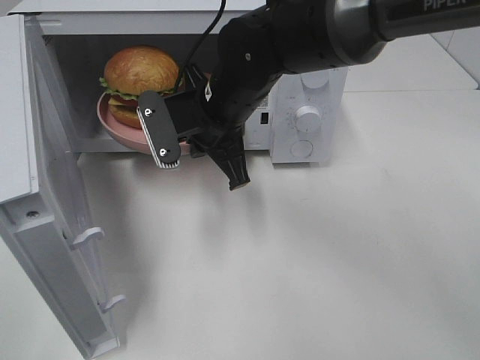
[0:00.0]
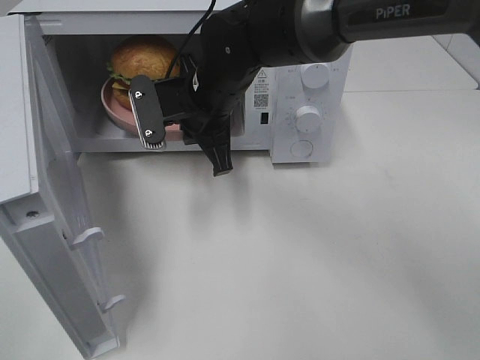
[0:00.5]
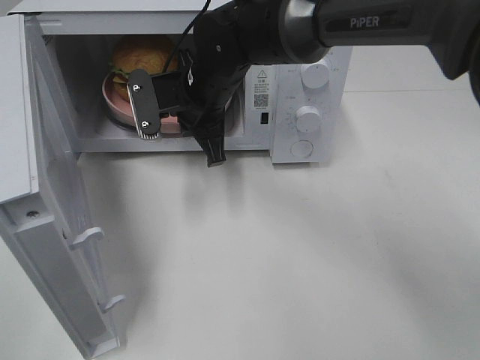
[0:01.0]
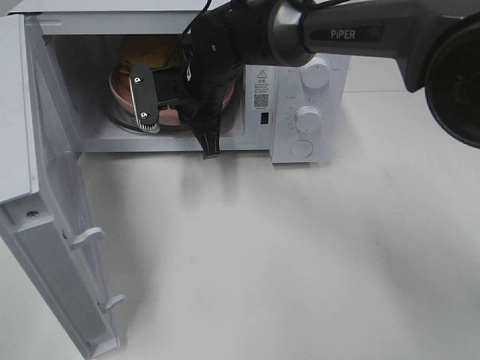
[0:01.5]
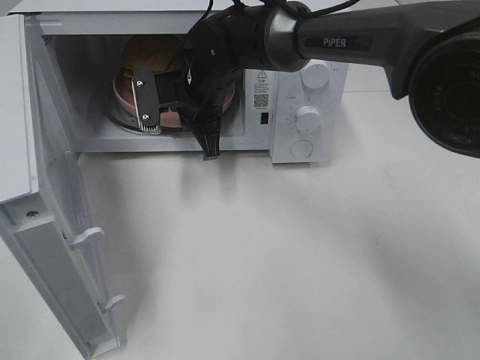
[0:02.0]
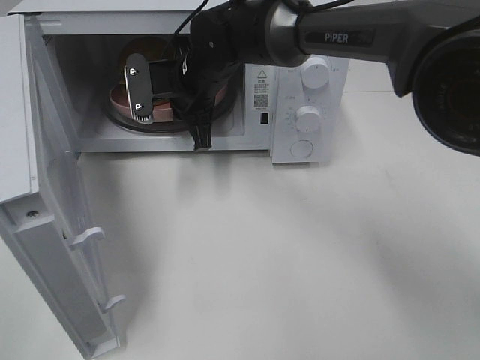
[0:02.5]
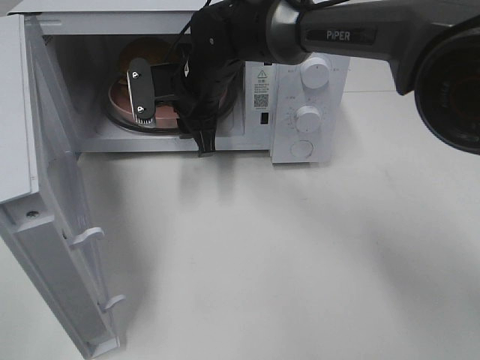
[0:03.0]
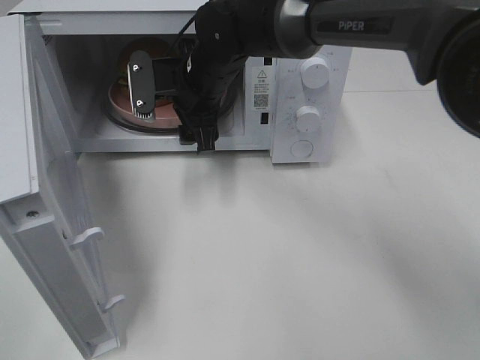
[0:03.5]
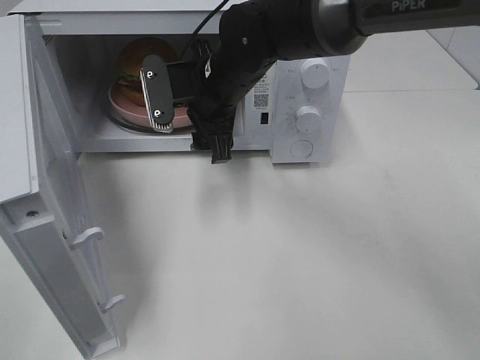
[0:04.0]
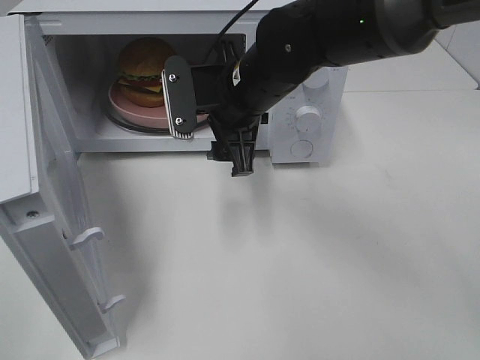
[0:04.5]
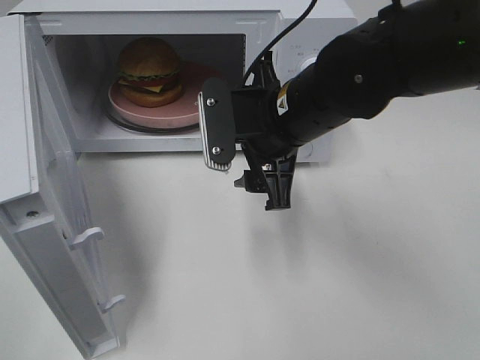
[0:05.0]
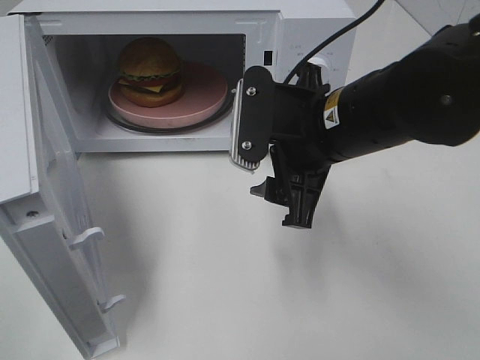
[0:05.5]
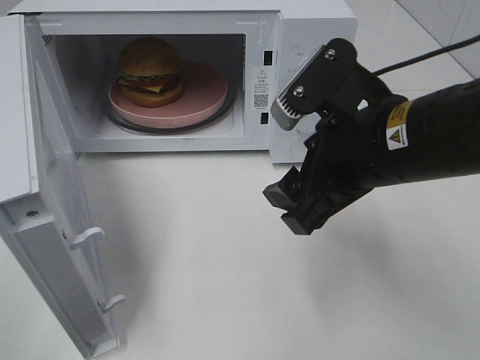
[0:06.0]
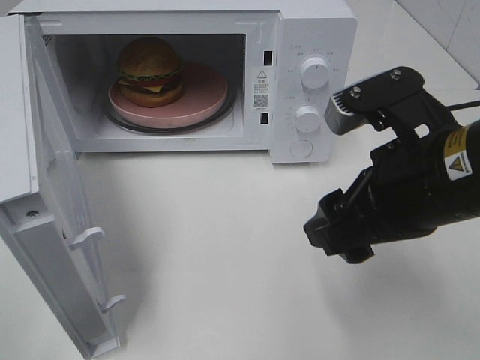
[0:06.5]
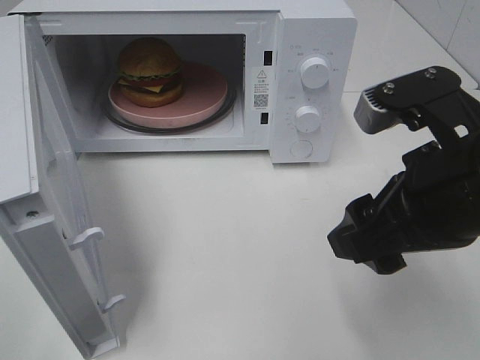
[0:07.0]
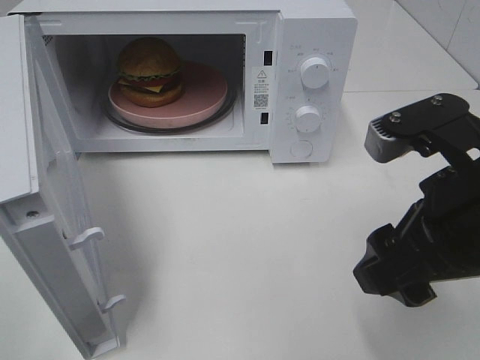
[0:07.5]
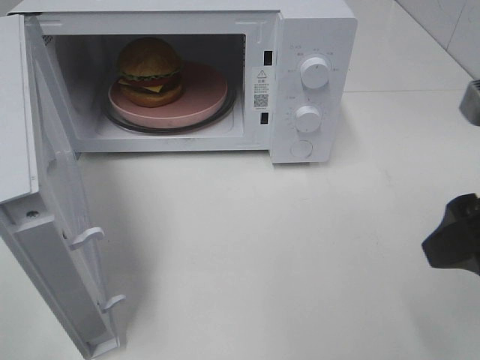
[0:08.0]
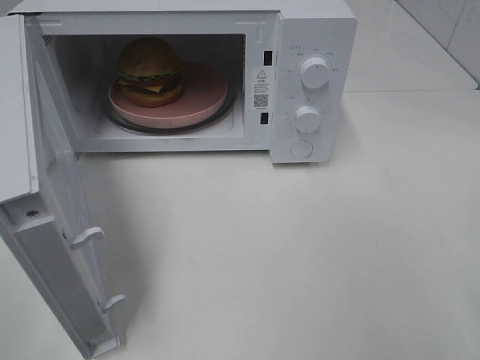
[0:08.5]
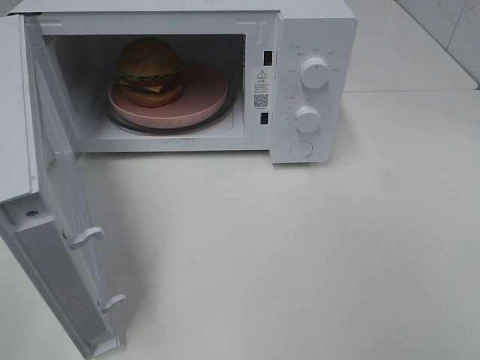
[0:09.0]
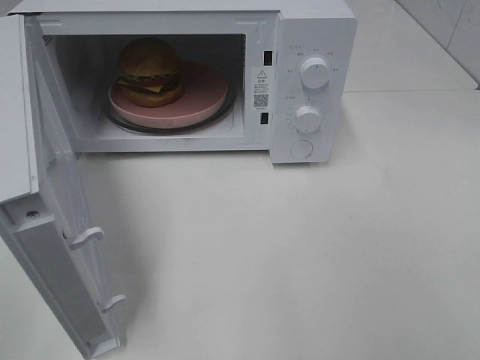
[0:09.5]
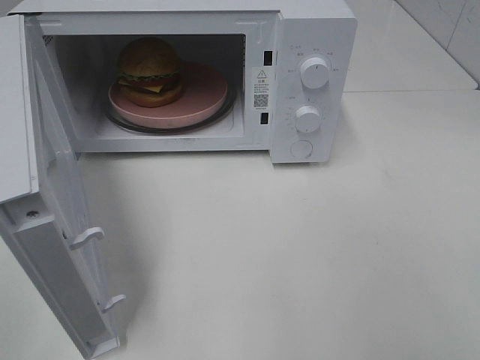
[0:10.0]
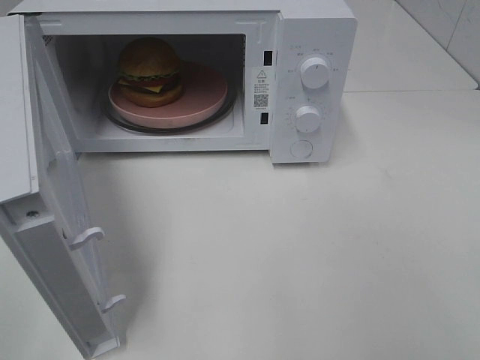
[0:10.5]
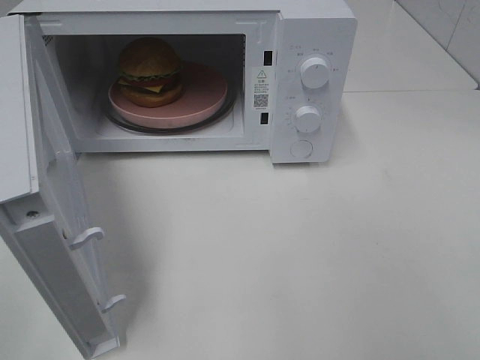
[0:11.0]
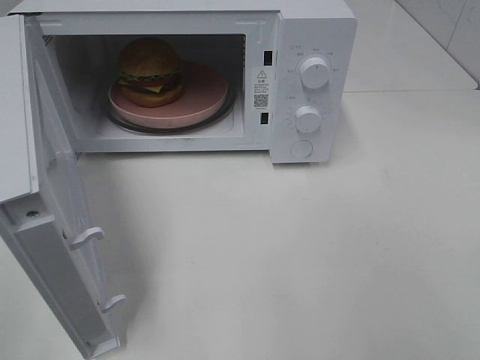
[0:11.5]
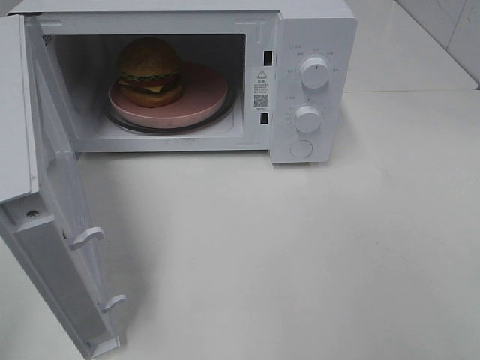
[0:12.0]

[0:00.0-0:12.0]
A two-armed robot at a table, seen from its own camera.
Task of the whole recording: Heat the burger.
Step, 0:00.0 to 0:03.0: Right hand: place the plate in the microwave.
0:00.0 to 0:02.0: The right gripper is displaced forward by about 10 cm.
0:02.0 to 0:04.0: The right gripper moves roughly 5 cm, and opens up.
0:04.0 to 0:06.0: The right gripper moves backward and to the right, some 20 cm.
0:06.0 to 0:08.0: The right gripper goes roughly 10 cm to the right and backward.
0:08.0 to 0:10.0: The right gripper heads backward and to the right, covering roughly 15 cm.

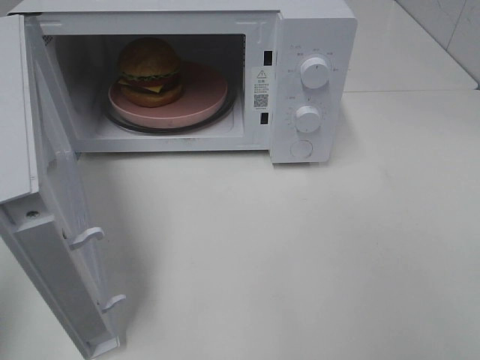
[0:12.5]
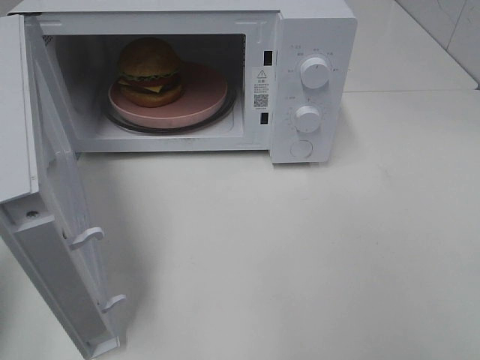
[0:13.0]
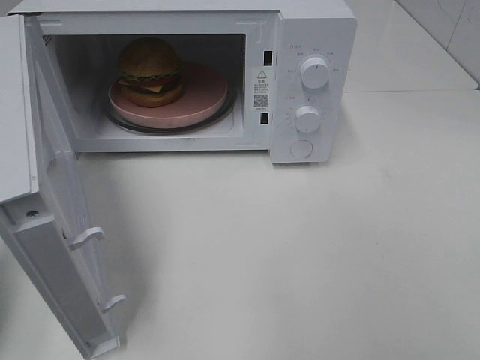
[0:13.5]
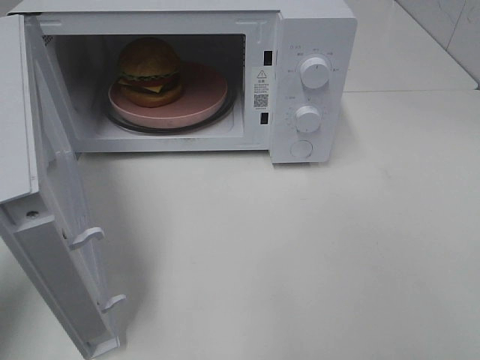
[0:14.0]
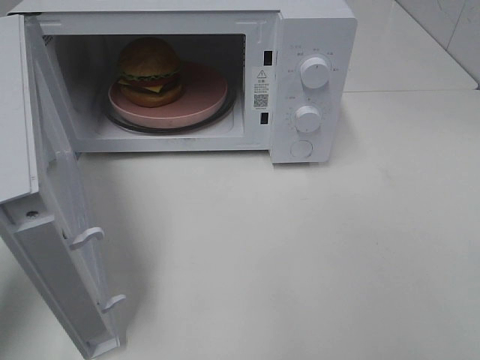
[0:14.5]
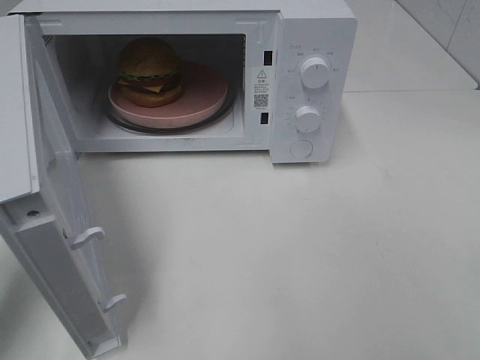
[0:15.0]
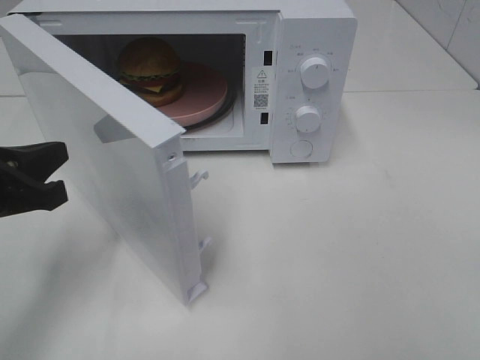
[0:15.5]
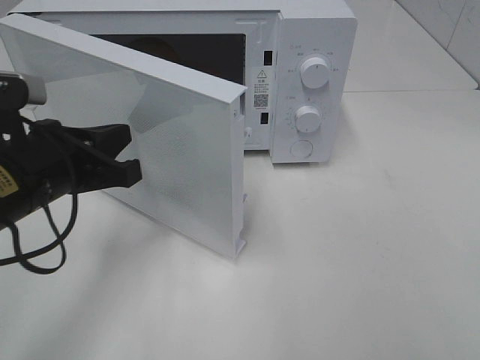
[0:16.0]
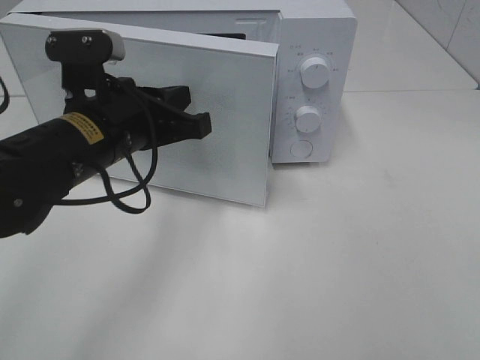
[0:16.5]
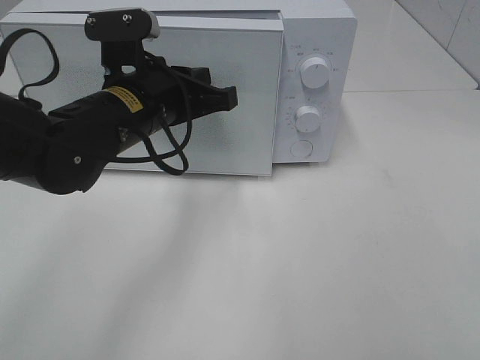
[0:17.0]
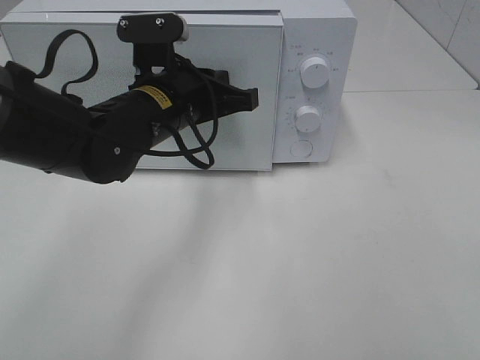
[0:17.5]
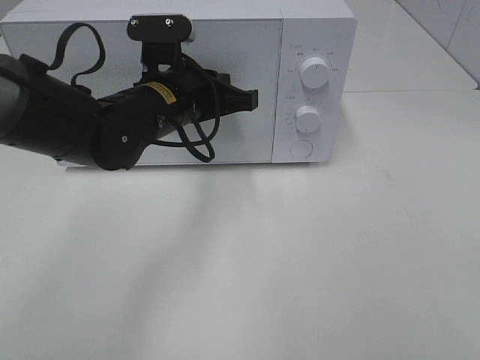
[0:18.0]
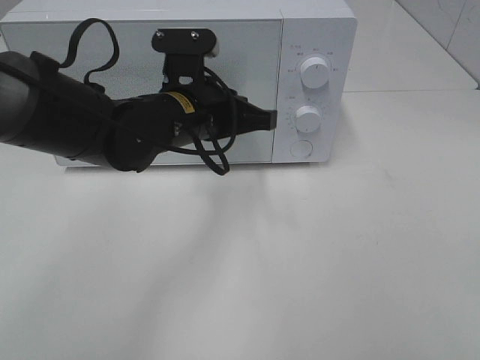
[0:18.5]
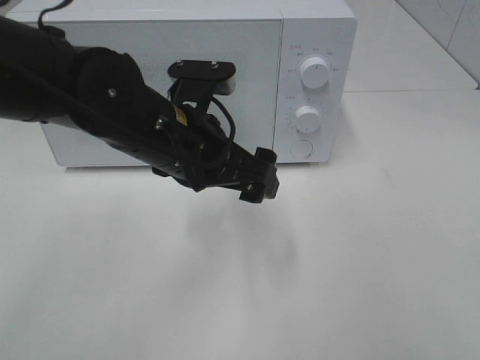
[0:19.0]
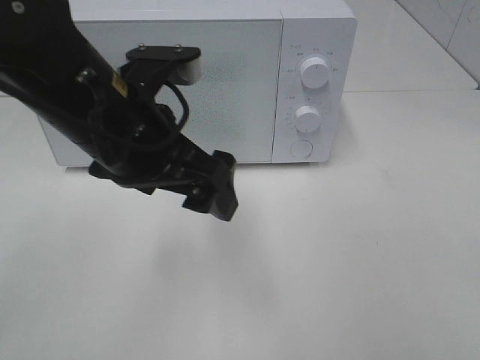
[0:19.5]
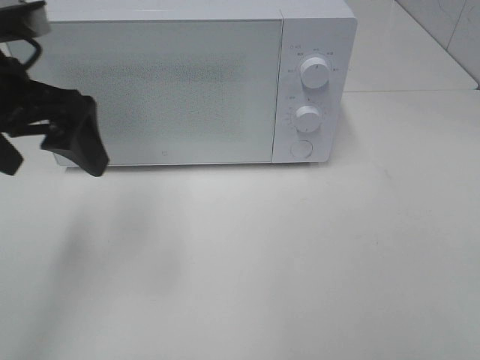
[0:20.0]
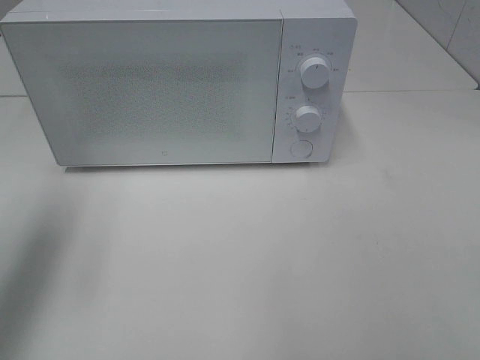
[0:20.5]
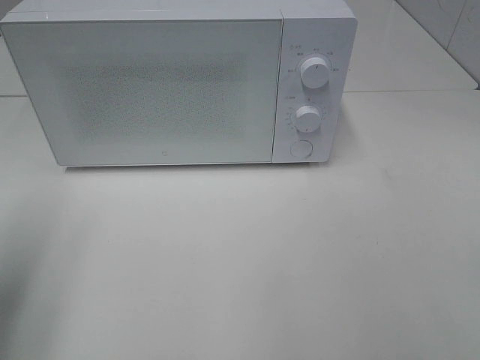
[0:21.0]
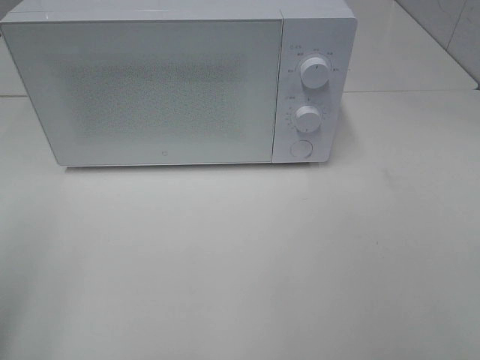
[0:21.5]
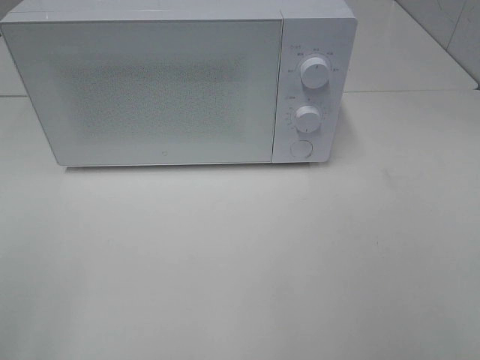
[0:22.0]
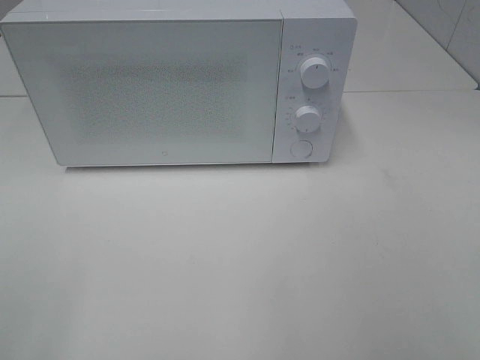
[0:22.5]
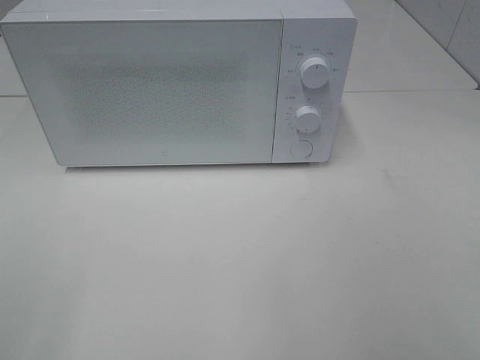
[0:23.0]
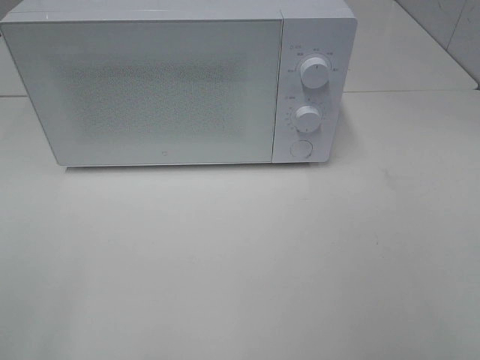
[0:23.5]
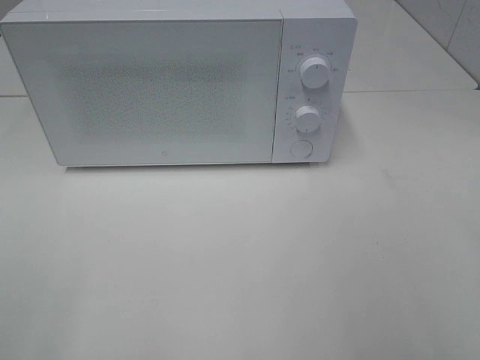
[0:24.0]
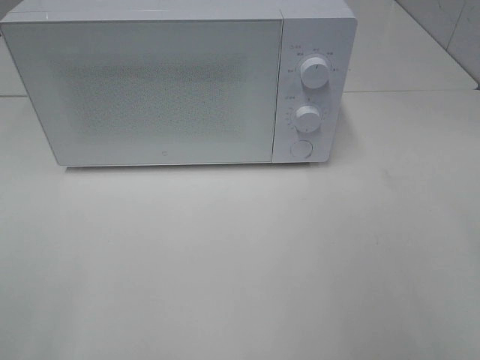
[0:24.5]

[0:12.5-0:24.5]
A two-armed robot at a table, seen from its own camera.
Task of the whole recording: Heat the burger.
Step, 0:12.5 to 0:18.5: Left hand: close the microwave door.
0:12.5 to 0:14.5: The left gripper goes roughly 15 cm downward and forward.
0:14.5 to 0:16.5: The left gripper moves to the right and forward, approximately 20 cm.
0:16.5 to 0:18.5: The left gripper travels to the right and forward by some 10 cm.
0:18.5 to 0:20.5: The left gripper travels to the left and upward by about 30 cm, and opens up.
0:20.5 to 0:22.5: The left gripper moves backward, some 25 cm.

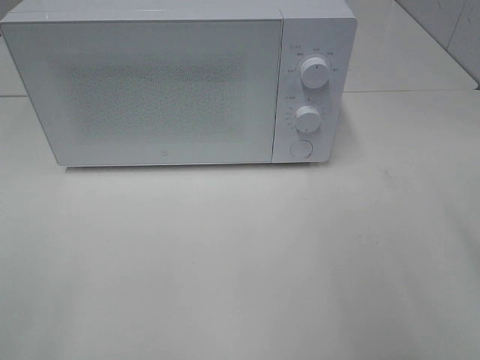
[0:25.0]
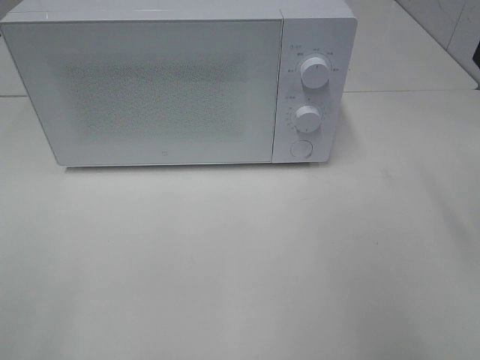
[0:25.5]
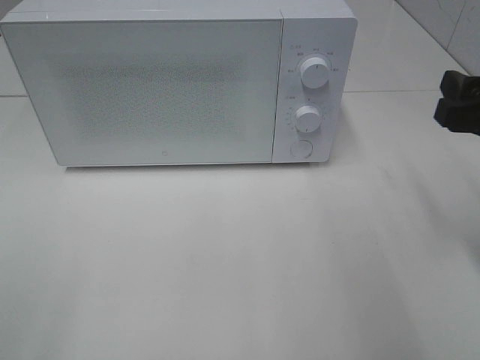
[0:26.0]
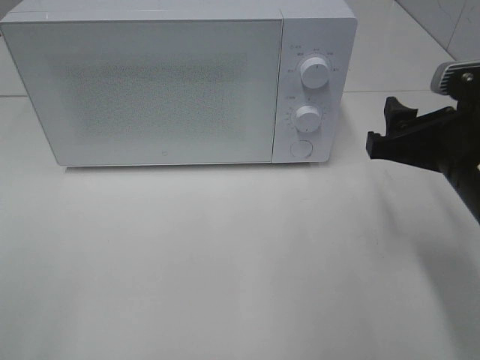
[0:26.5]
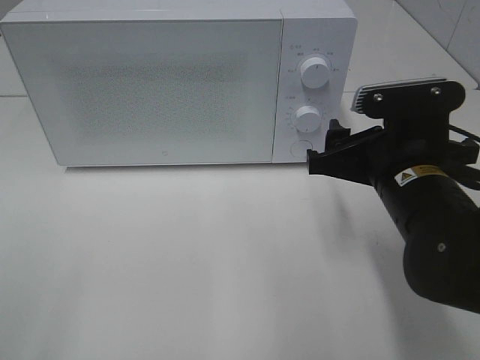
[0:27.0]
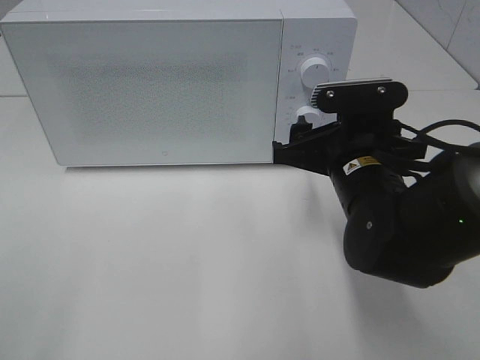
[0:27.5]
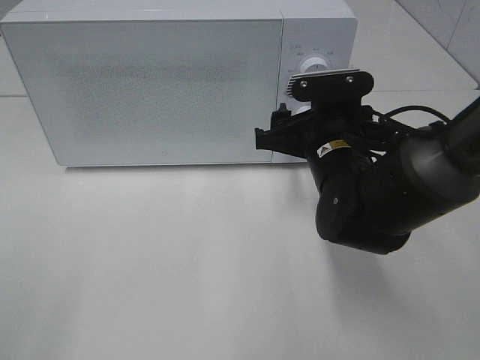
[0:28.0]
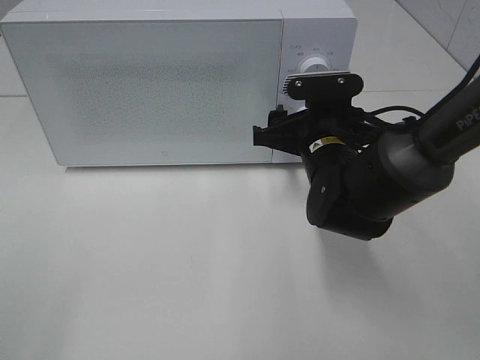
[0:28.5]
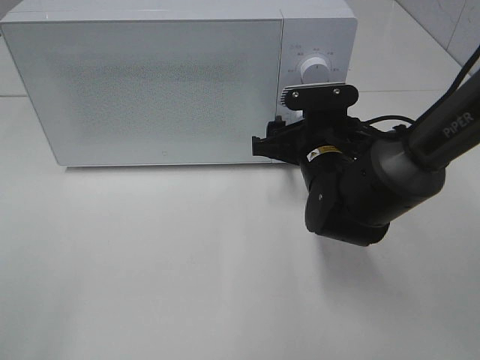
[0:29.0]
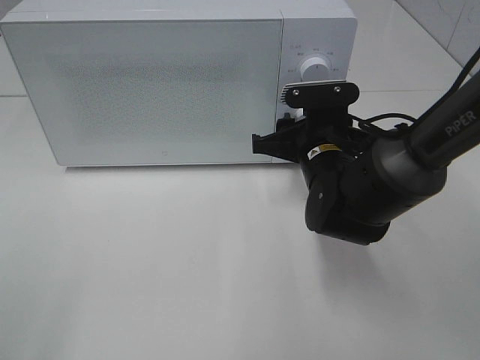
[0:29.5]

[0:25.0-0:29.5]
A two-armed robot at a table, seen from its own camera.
Task of the whole recording: Heat the burger.
0:25.0 to 0:27.0: The right gripper moves to the left, downward and forward, some 20 cm.
0:27.0 to 0:29.5: The right gripper moves forward and downward, about 10 cm.
